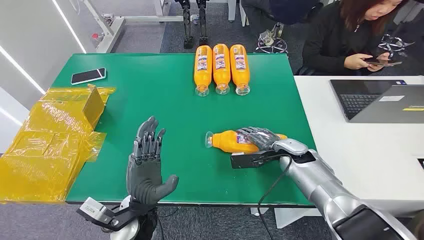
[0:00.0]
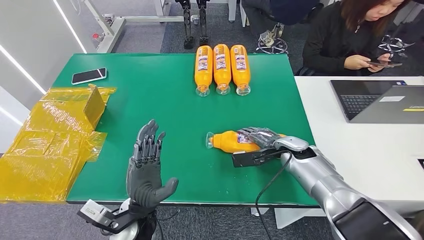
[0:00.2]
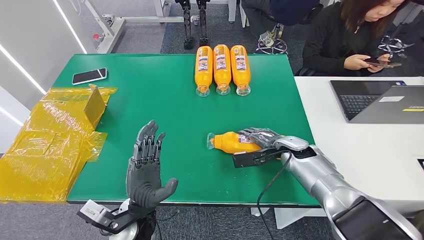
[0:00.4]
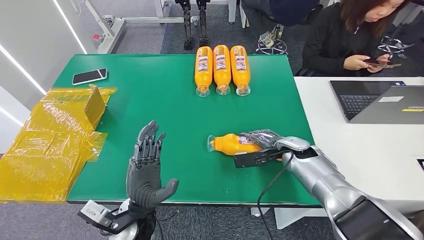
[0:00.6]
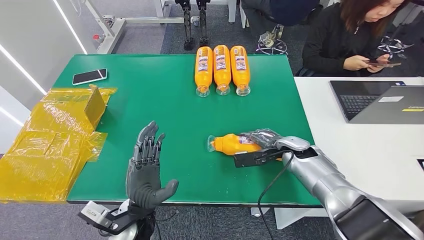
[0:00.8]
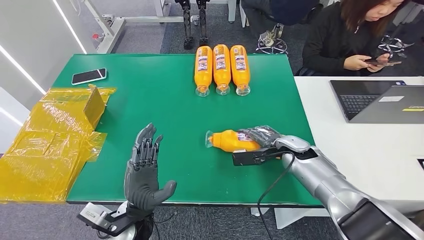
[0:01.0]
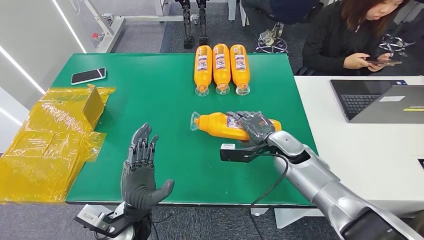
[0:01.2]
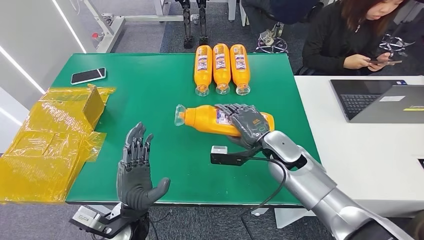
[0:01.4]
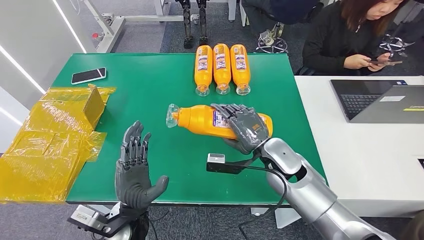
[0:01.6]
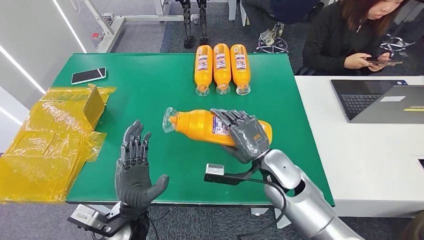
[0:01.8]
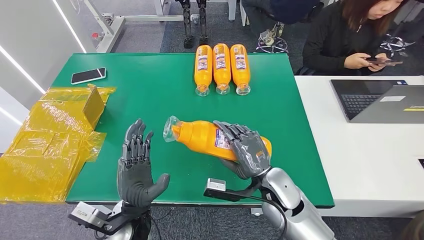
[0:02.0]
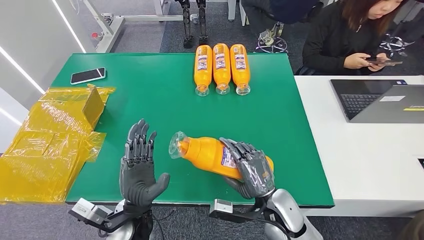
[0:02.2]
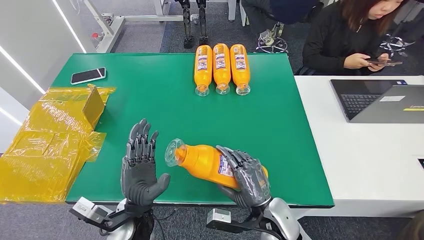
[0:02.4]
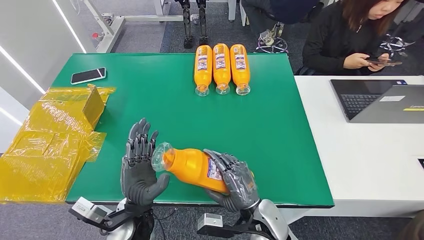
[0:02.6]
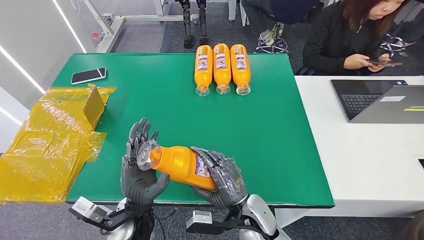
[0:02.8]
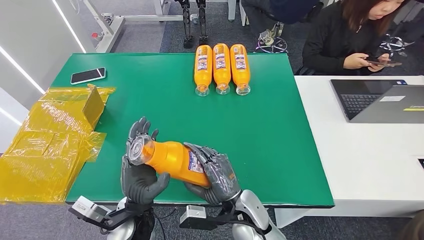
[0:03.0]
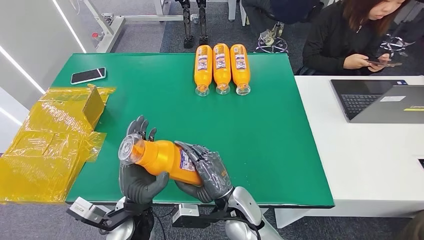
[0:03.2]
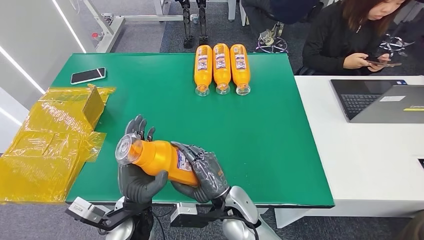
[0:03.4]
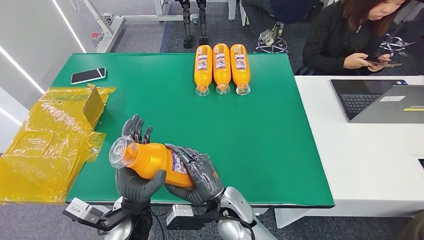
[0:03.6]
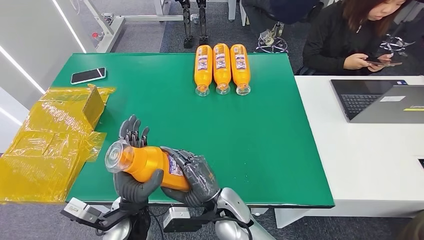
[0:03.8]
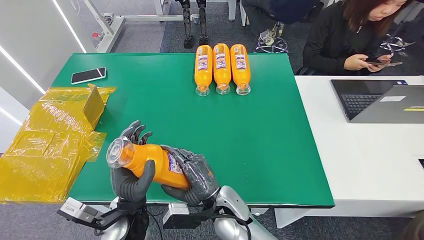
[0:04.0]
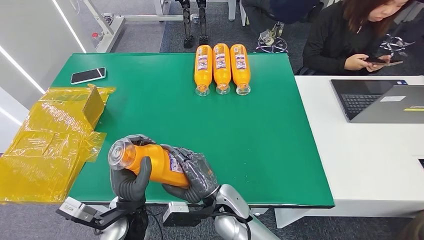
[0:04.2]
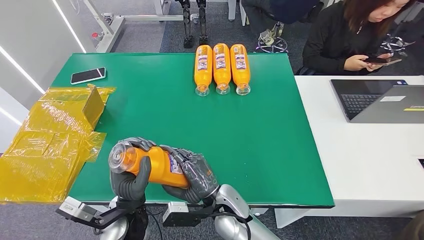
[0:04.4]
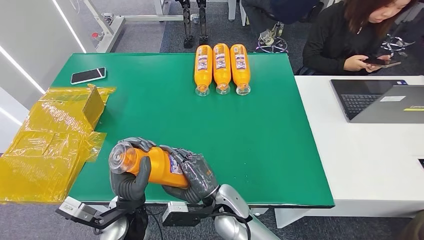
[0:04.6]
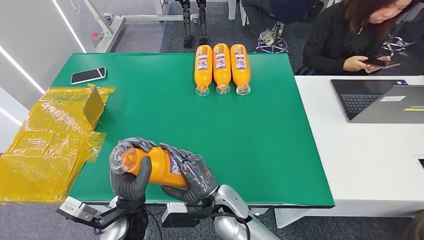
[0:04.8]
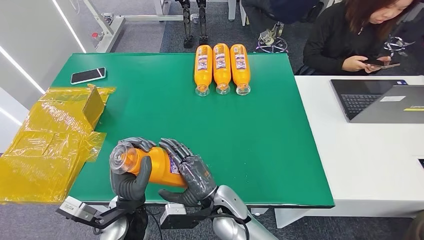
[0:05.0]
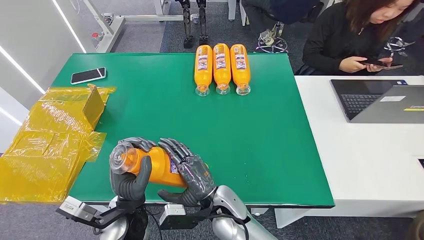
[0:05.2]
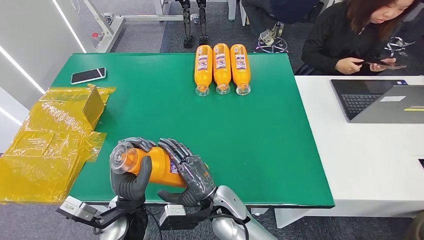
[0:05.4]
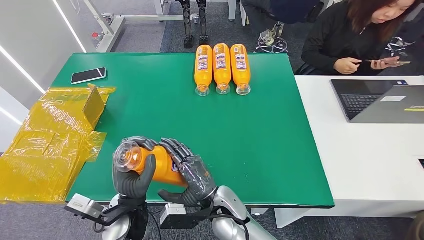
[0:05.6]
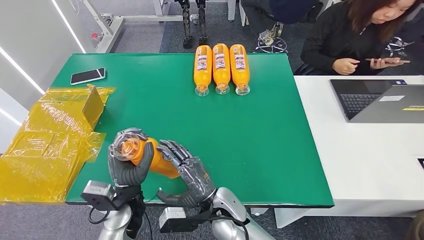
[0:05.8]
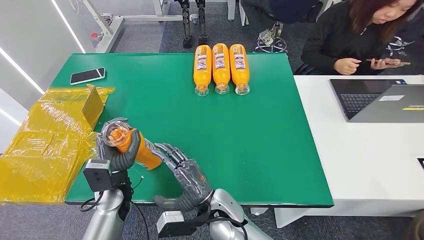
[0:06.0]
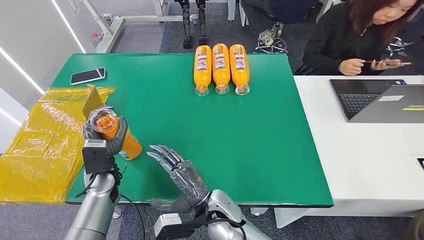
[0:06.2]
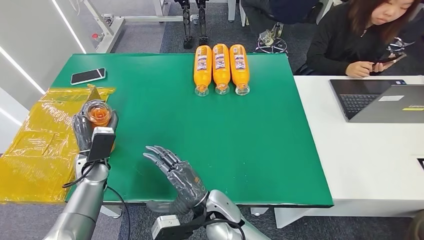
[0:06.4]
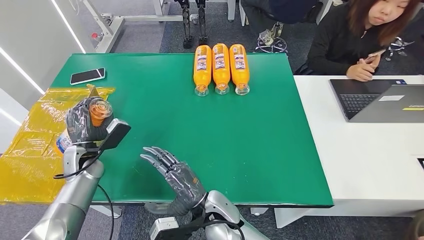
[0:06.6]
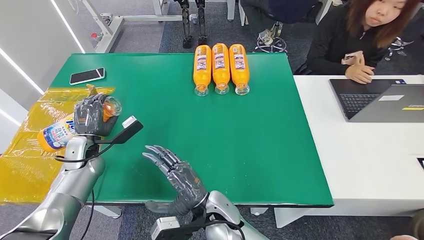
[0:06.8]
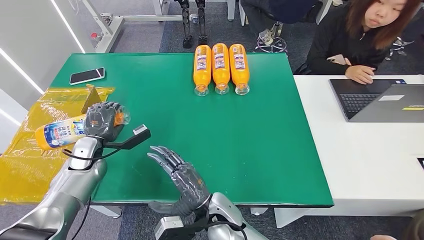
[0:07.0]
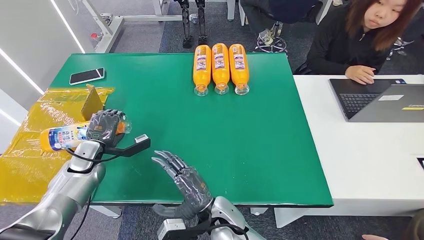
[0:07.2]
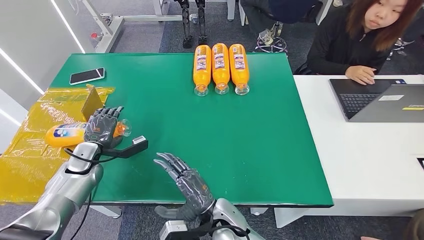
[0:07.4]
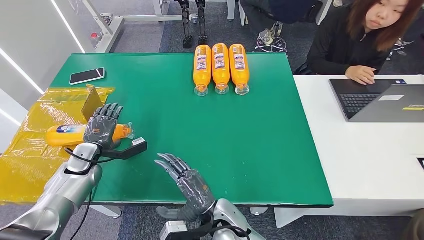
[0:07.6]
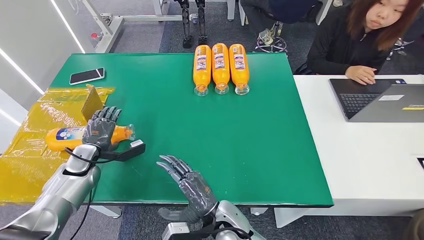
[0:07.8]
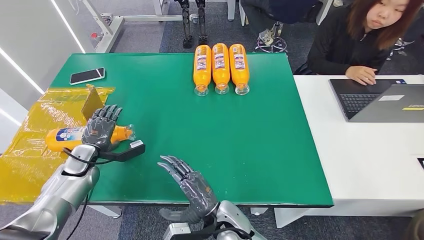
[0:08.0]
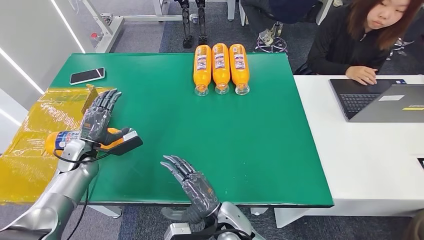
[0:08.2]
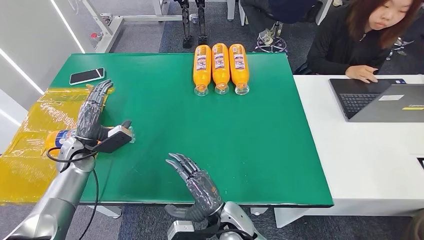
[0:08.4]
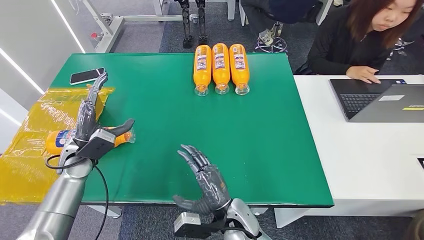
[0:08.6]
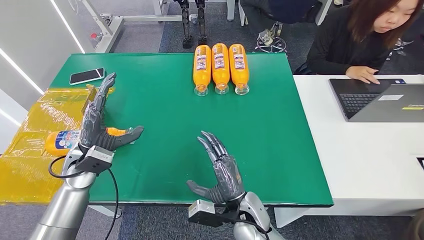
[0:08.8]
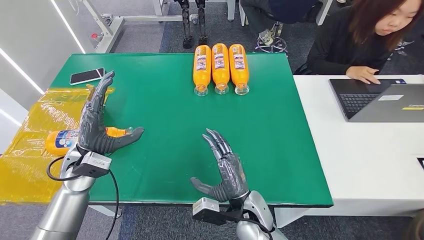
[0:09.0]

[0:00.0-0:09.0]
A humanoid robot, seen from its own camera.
Step, 0:00.0 to 0:02.8: Pick up the bottle from the table.
Step, 0:03.2 to 0:09.0: Turn the bottle to the front side.
0:01.6 to 0:03.0: The right hand moves backward, to the left and downward, some 15 cm.
0:03.0 to 0:04.4: The hands make only small movements.
0:04.4 to 0:06.0: The left hand goes some 10 cm to the left and forward.
0:06.0 to 0:07.6: The left hand is displaced to the left and forward by some 20 cm.
0:07.6 to 0:09.0: The right hand is displaced to the right by roughly 5 cm; the left hand shifts approximately 10 cm to the right and upward.
